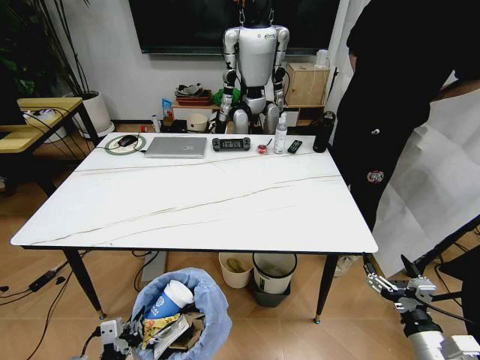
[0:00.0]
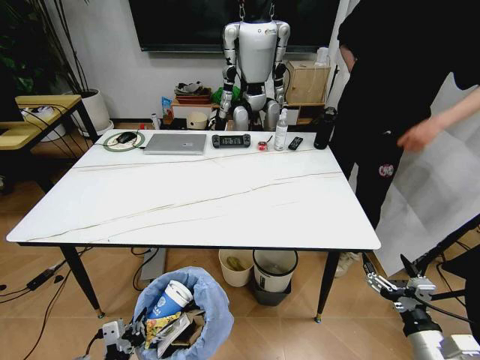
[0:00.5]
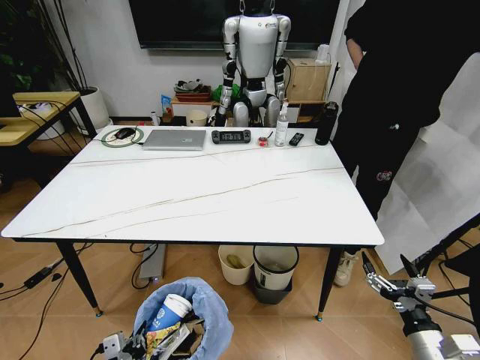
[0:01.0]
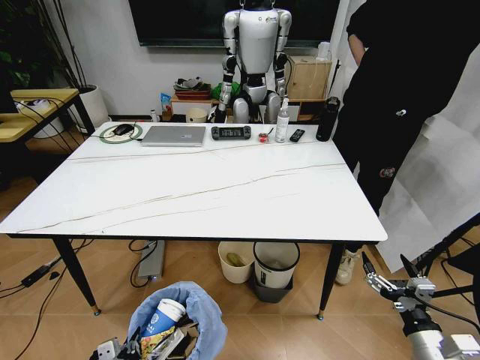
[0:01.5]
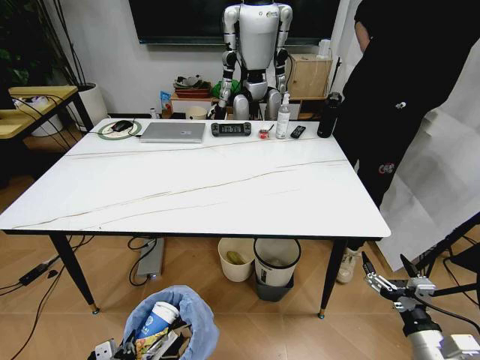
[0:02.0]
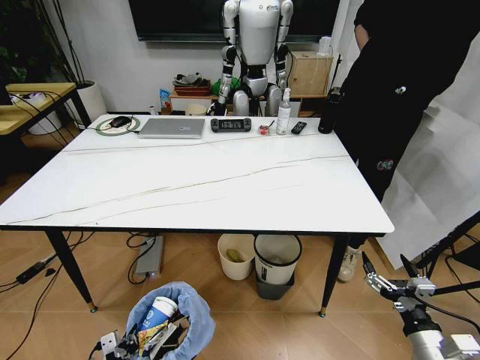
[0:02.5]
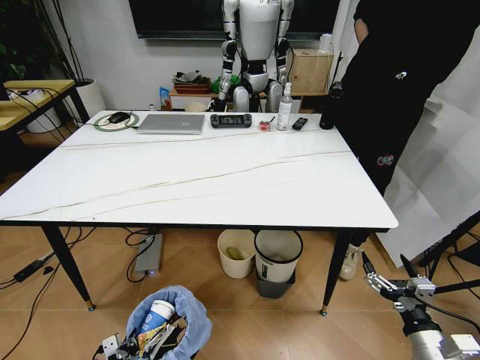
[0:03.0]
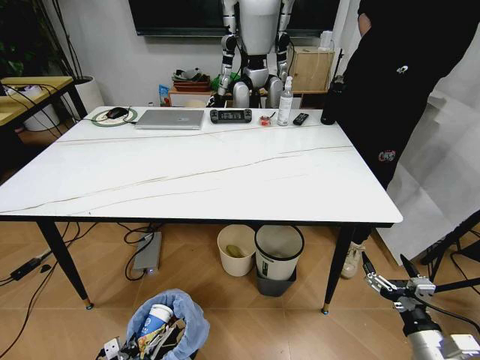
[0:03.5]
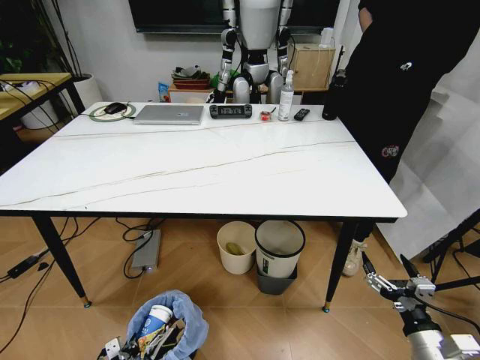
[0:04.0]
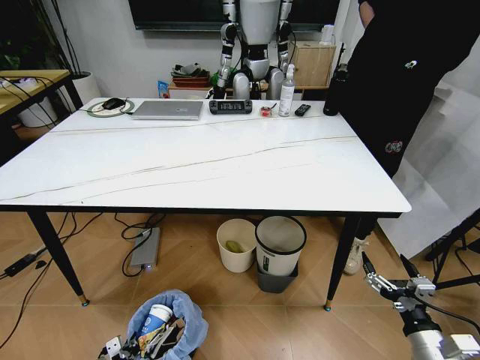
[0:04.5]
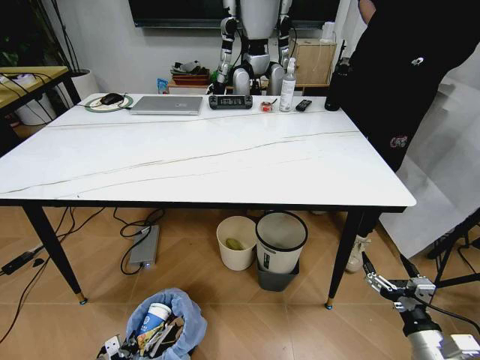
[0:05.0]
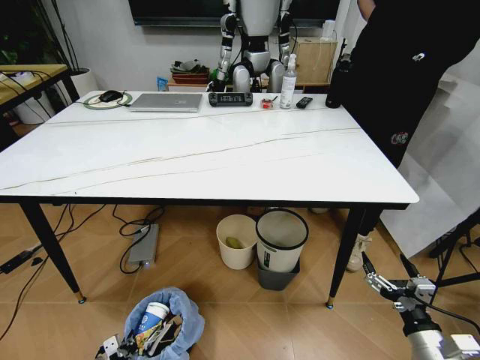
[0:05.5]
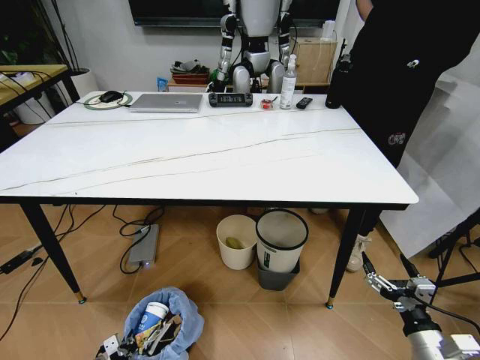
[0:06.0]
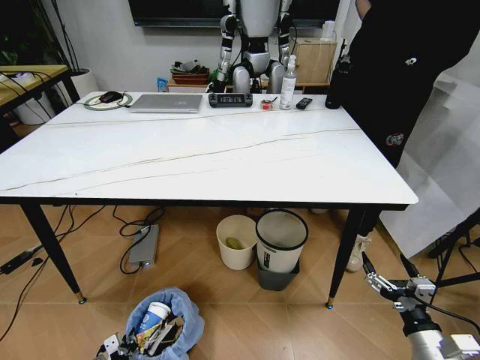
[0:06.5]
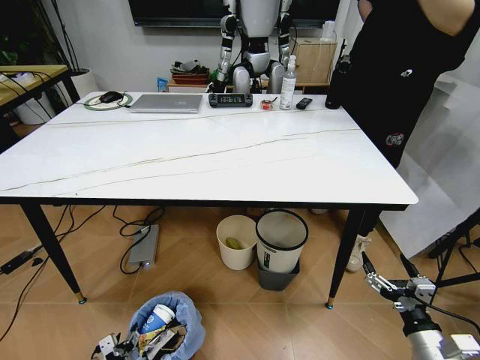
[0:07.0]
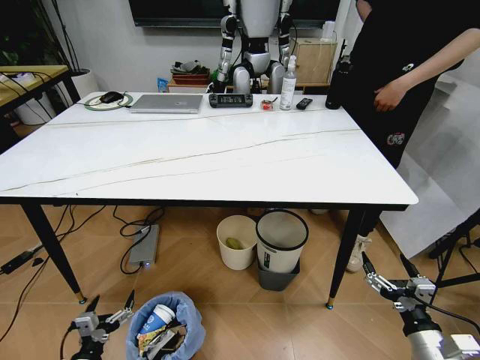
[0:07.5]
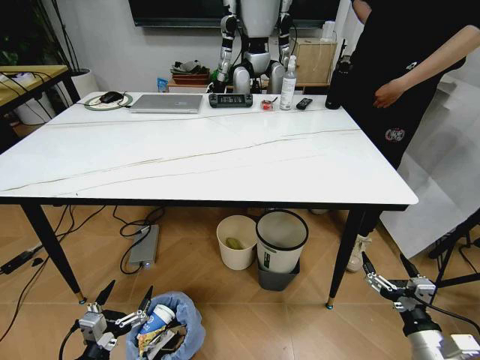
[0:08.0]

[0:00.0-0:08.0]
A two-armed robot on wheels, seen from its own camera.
Task of the whole recording: Pick up the trash bin and place the trash from the table into it.
0:00.0 to 0:02.0: The left gripper goes approximately 5 cm downward.
0:02.0 to 0:04.0: The left gripper heads downward, covering roughly 15 cm.
0:06.0 to 0:08.0: The left gripper moves upward, roughly 20 cm, and opens up.
